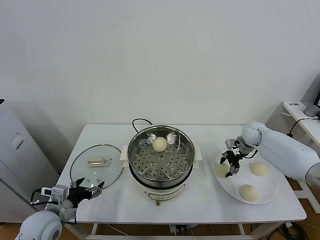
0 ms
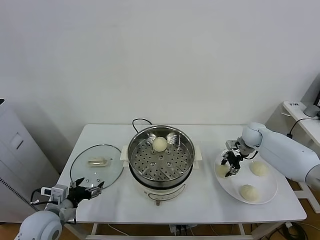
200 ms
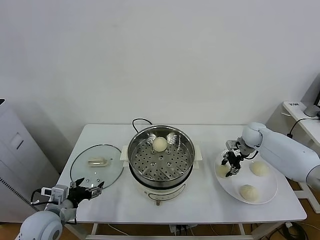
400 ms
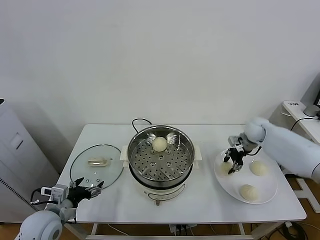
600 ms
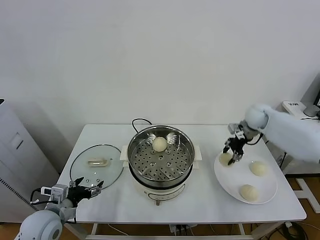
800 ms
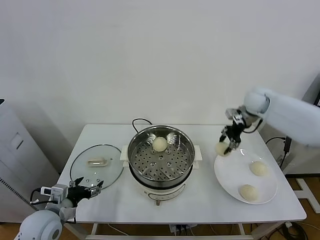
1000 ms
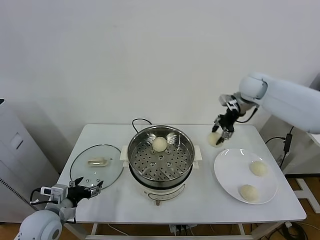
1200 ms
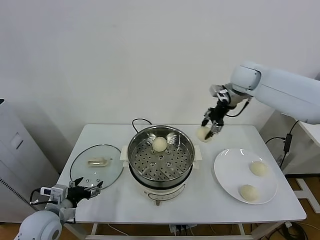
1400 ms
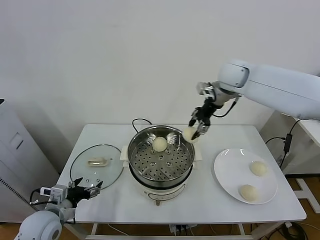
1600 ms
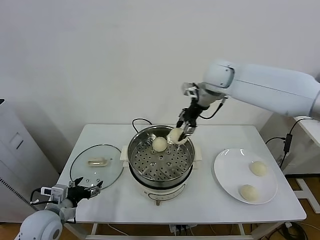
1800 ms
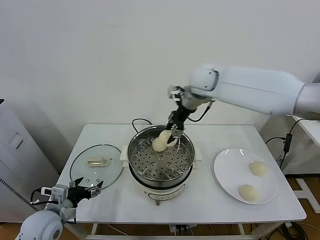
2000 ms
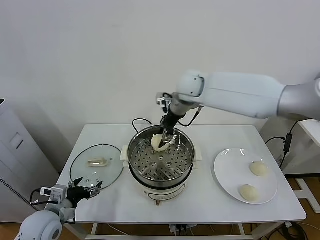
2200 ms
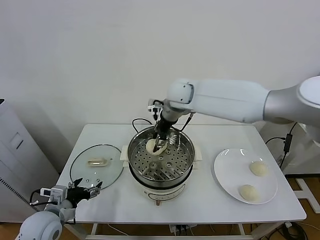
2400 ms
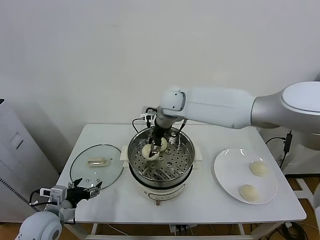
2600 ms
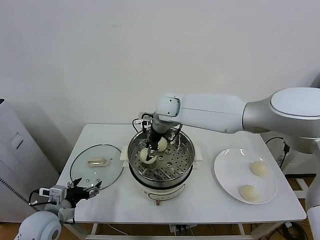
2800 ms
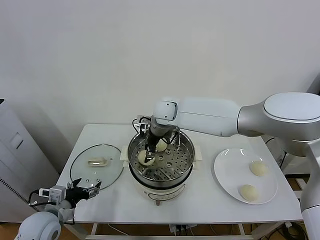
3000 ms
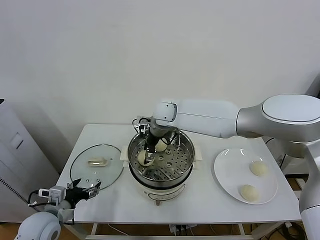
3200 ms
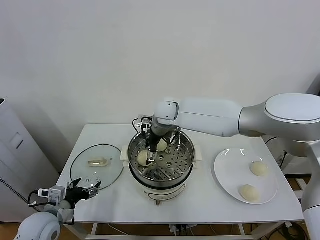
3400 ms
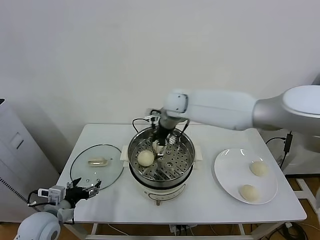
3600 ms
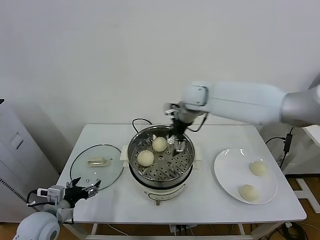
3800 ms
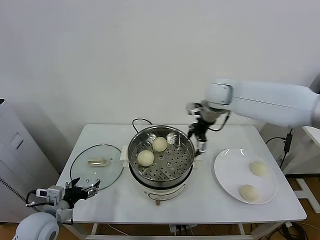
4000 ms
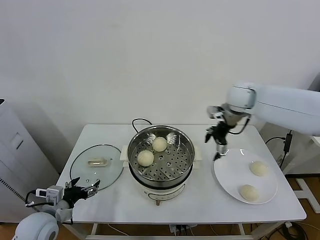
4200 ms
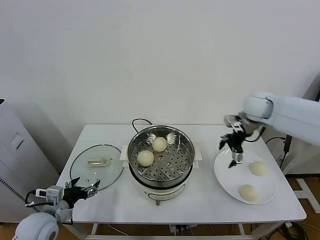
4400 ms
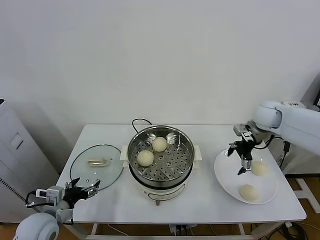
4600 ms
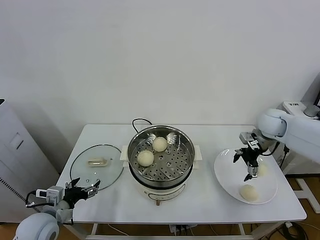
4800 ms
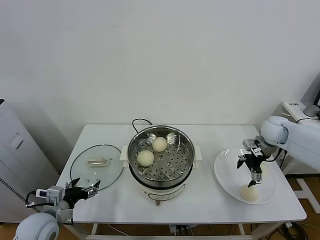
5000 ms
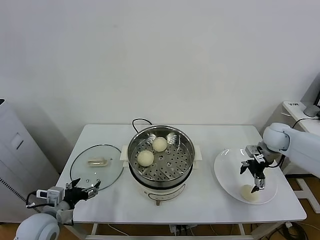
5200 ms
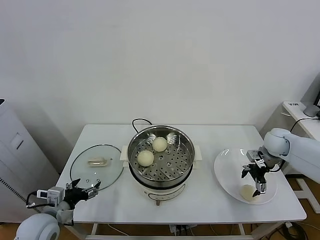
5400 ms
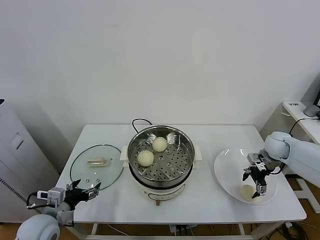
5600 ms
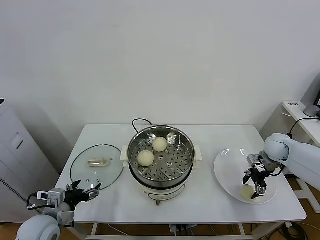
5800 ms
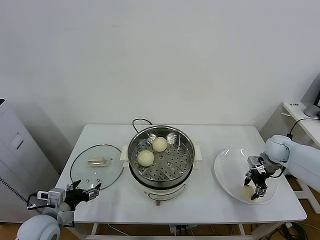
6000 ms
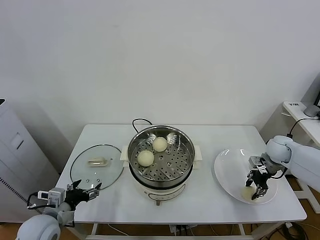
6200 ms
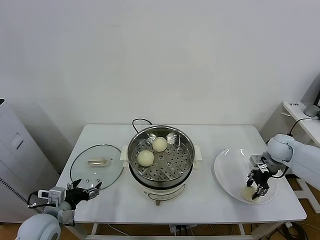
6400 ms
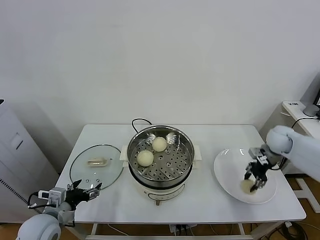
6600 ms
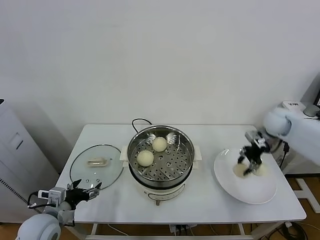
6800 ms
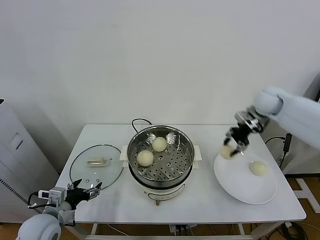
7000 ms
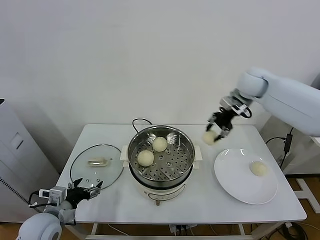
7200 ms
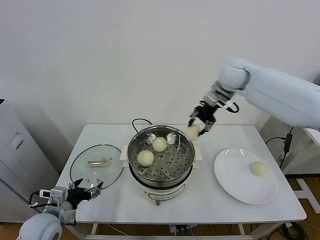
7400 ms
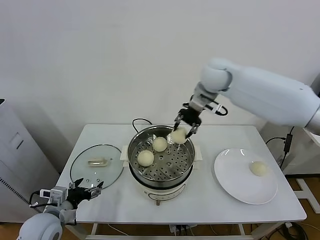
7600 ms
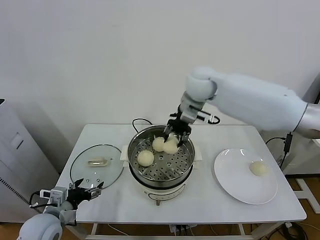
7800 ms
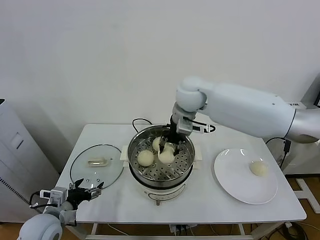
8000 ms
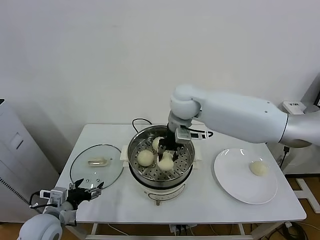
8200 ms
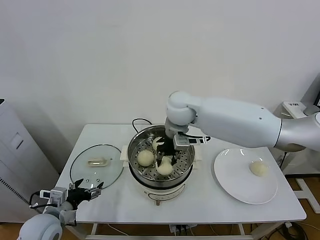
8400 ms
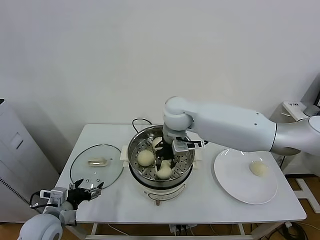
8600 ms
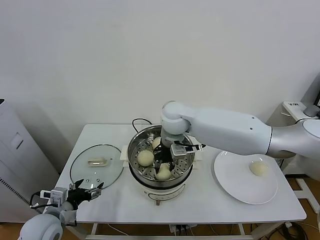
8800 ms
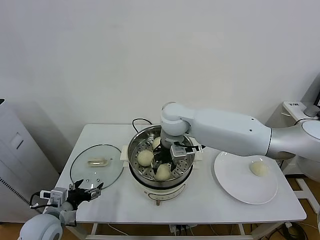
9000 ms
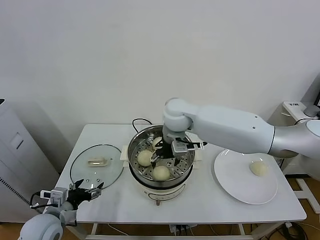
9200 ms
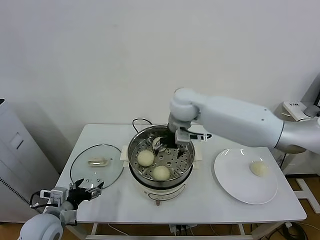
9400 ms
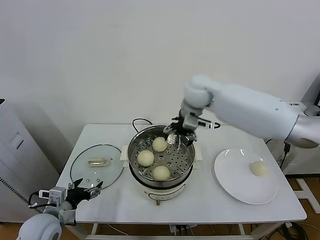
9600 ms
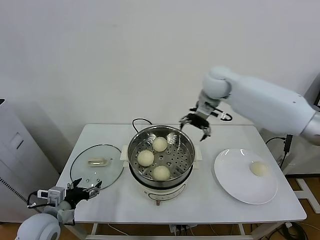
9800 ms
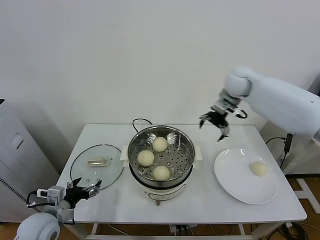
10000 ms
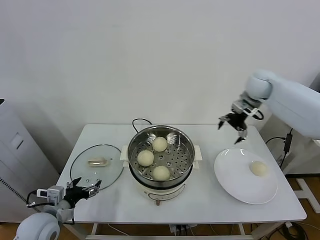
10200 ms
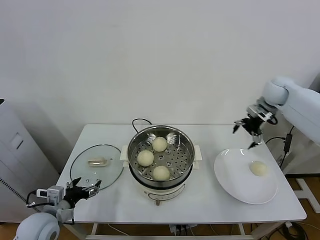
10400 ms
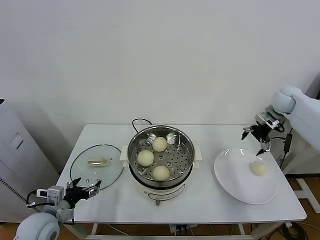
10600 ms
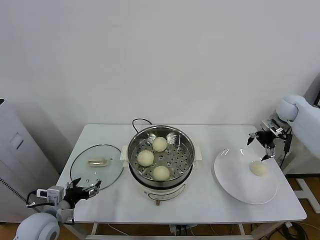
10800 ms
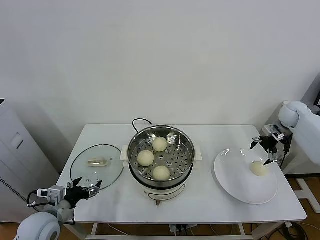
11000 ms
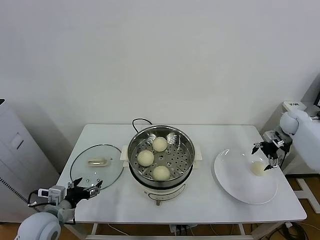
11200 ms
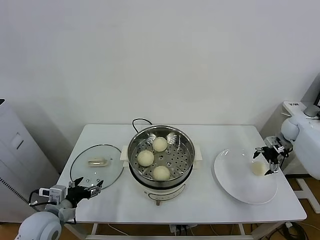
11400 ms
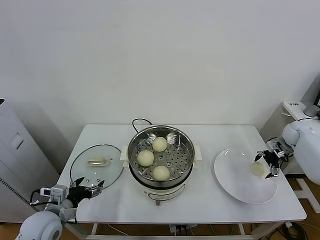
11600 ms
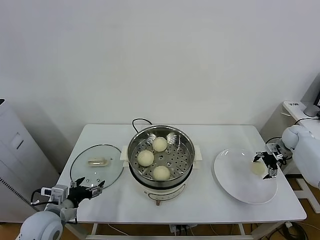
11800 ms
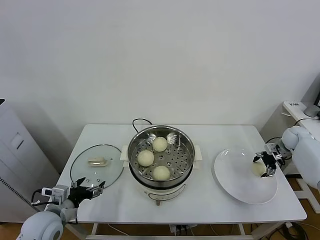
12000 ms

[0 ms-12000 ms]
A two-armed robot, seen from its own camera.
Task of the whole recording: take steamed baozi put them in steamer.
Step, 400 ms to 3400 ms: Place the baozi on the steamer with right gripper.
Step, 3800 ms to 6000 ms: Grasp the baozi in the plate with right gripper.
Step, 6200 ms to 9200 ms: Place the baozi on the steamer with right gripper.
0 ms to 1600 ms: The right gripper moves upward and to the left, some 30 cm.
1600 ms to 3000 ms: The right gripper goes about 25 cm to the left and downward.
3000 ms to 4400 ms: The right gripper goes about 30 cm to the right, and opens.
4400 ms to 6000 ms: The right gripper moves downward and to the right, roughly 20 cm, and closes its fingers.
6000 ms to 7600 ms: The right gripper moves to the left and upward, approximately 40 cm.
7600 ms to 9000 ms: The right gripper travels downward, to the left and backward by some 15 cm, and opens.
9000 ms to 10400 ms: The right gripper heads to the right, covering approximately 35 cm, and opens its fingers.
10400 ms to 12000 ms: The right gripper is displaced downward and to the right by roughly 25 cm.

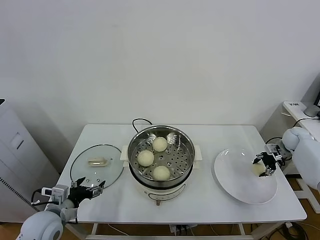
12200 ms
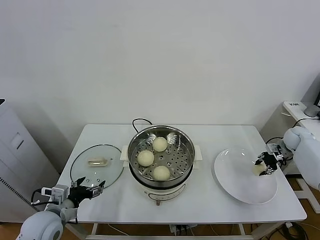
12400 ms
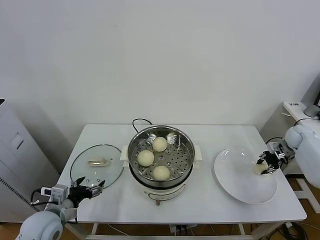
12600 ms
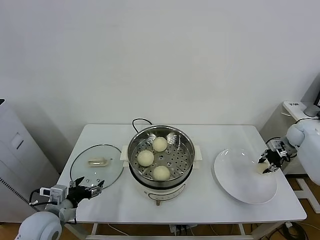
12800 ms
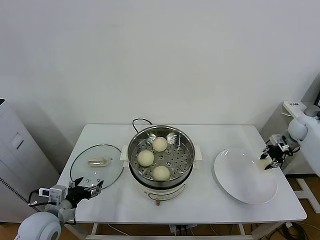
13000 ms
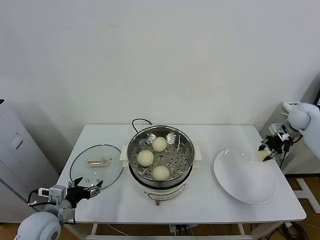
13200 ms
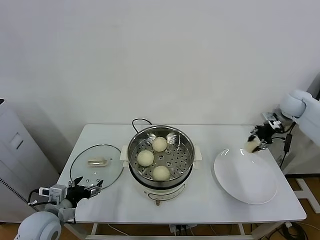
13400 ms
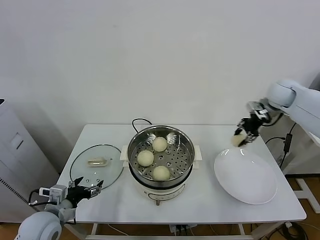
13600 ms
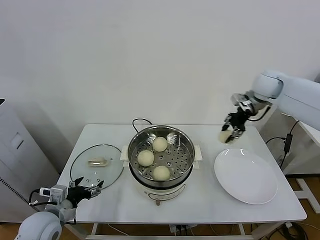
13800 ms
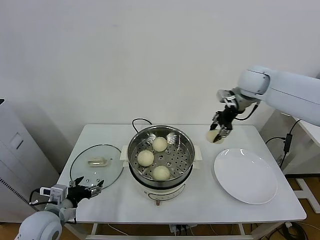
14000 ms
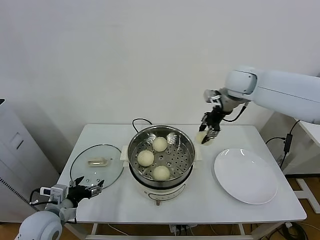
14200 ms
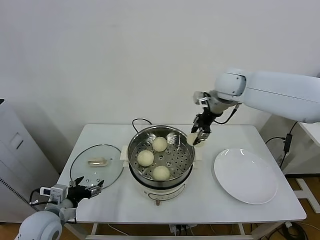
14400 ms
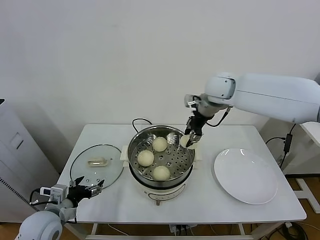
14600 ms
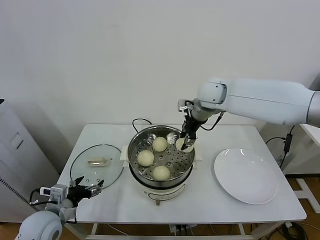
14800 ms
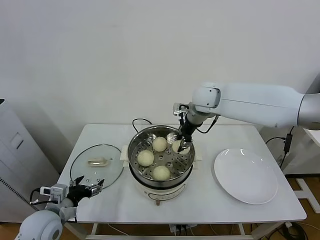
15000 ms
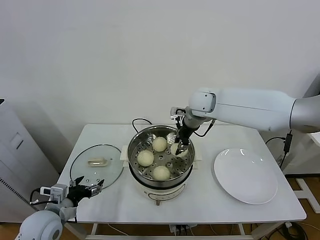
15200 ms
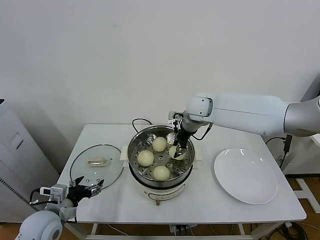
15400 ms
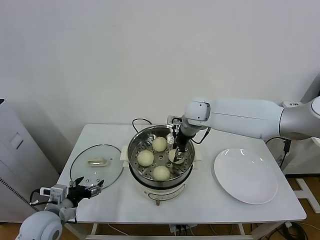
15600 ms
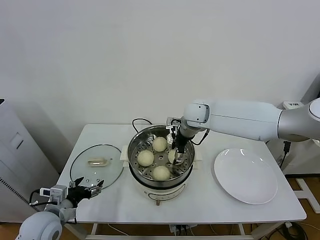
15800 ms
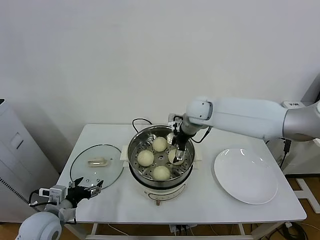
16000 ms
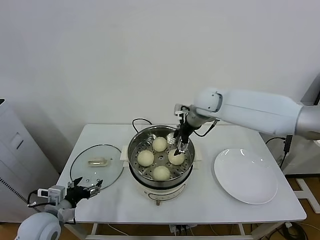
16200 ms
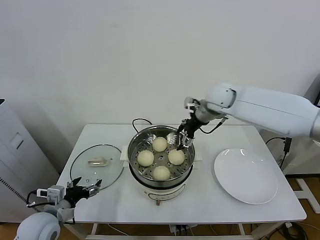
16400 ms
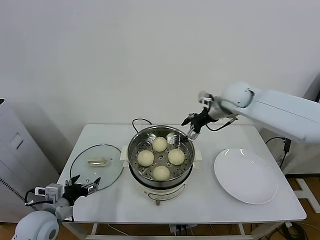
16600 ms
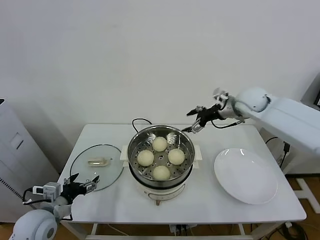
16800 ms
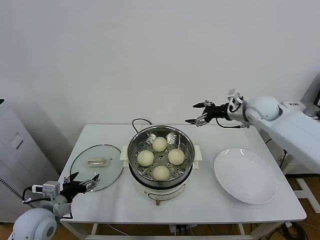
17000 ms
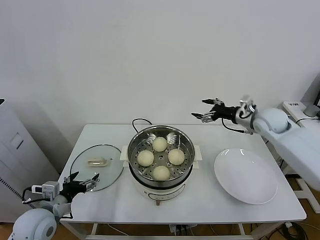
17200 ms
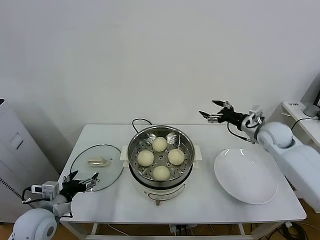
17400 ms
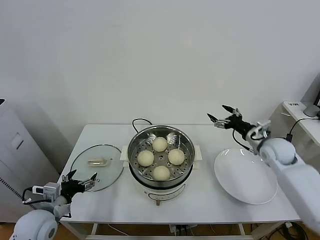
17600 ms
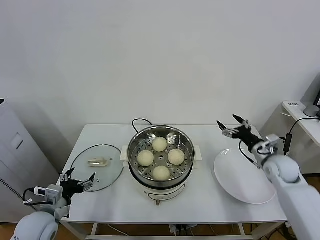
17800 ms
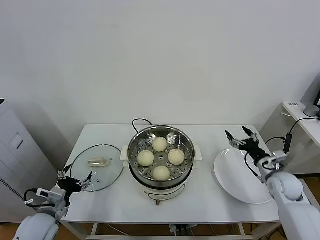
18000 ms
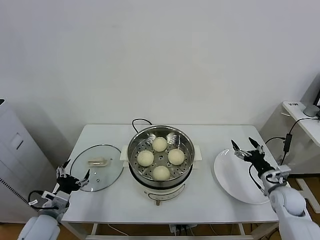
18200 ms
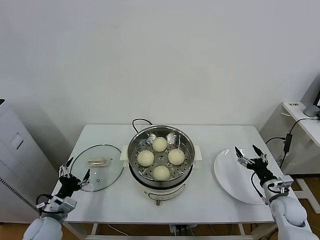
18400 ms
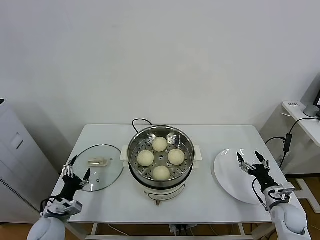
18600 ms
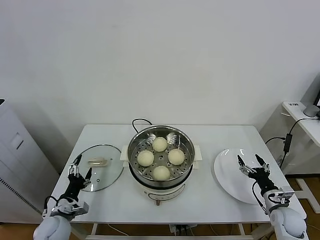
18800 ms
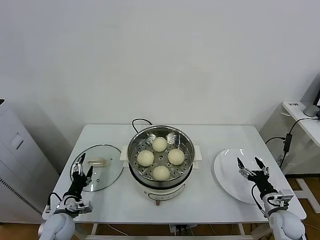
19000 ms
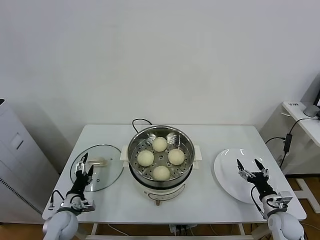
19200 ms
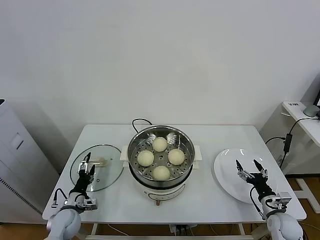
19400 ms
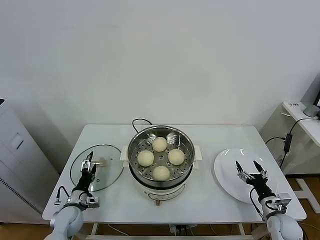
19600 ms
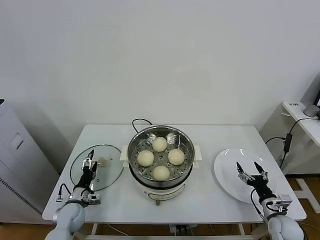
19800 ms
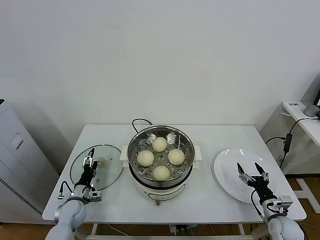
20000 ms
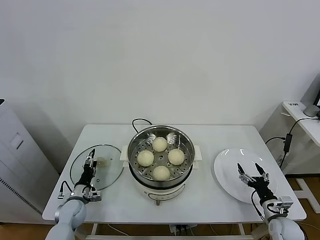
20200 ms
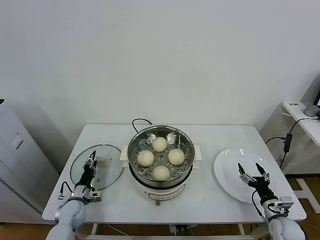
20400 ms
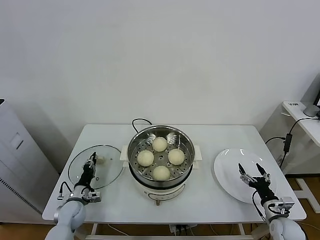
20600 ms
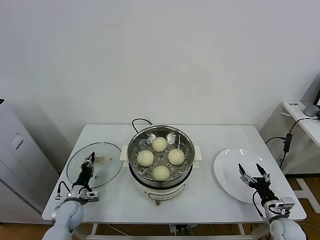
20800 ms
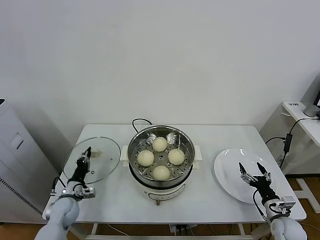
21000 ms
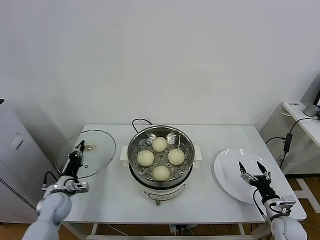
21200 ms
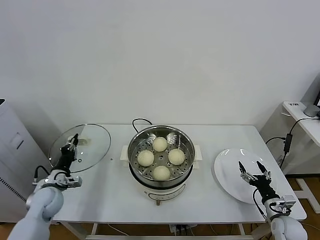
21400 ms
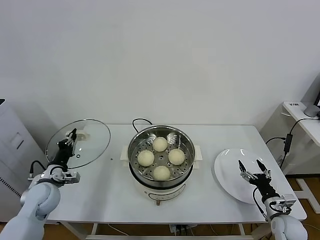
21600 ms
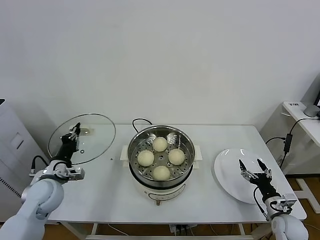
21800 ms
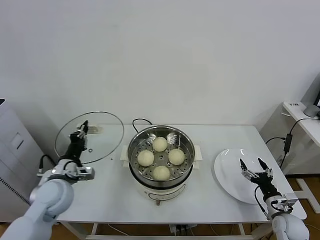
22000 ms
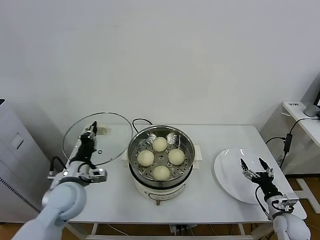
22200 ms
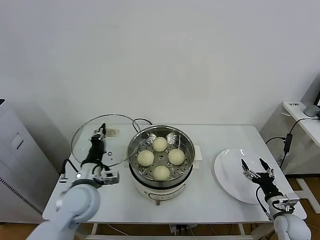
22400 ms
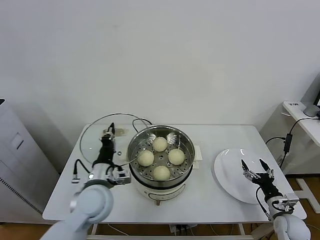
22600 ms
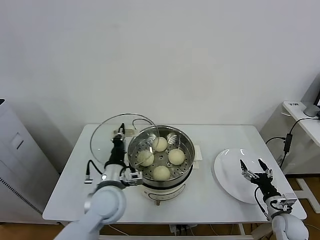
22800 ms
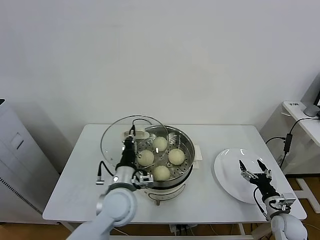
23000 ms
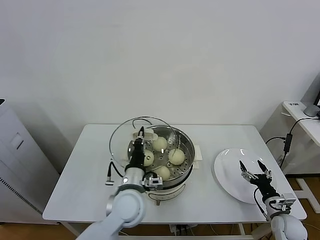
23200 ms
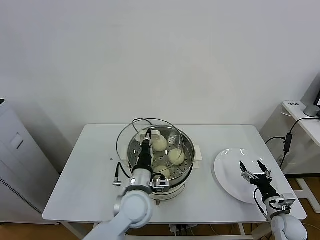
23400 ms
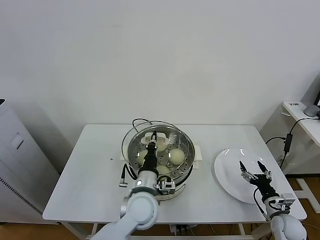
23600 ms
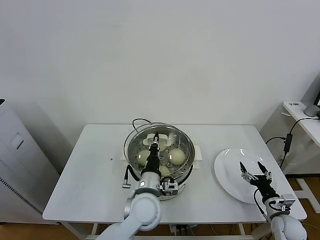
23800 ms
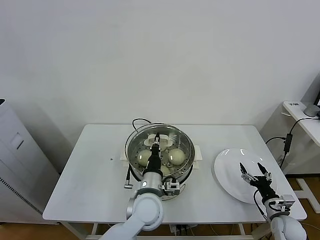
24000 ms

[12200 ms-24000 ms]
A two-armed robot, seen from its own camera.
Task of the whole recording: take steamed baozi put them in steamer.
Step, 12600 ms to 16400 ms: Place the baozi on the steamer with right gripper.
Step, 16600 ms to 20800 ms: Grasp the pot lid with left gripper.
12200 ms to 13600 ms: The right gripper travels upward and to the left by roughly 25 cm, and closes its fingers.
13600 ms to 15200 ms: The right gripper moves to the left, some 25 cm.
15200 ms to 16600 ms: The right gripper goes roughly 10 cm to the right, and opens up.
16600 ms to 18200 ms: The left gripper ends up some 5 cm from where it was. The right gripper is displaced downward, backward and to the right by approximately 40 cm.
18200 ms to 19600 ms: The right gripper travels downward and backward by roughly 10 cm; the left gripper is displaced downward and forward by some 15 cm.
19600 ms to 21000 ms: The left gripper closes up.
21000 ms to 22600 ms: The left gripper shifts about 25 cm upward and to the right.
22600 ms to 24000 ms: The left gripper travels to the right by roughly 15 cm.
